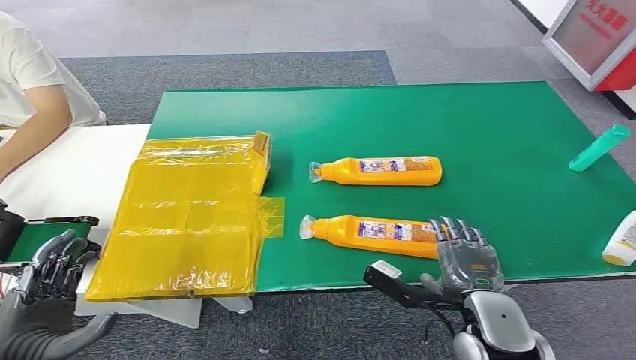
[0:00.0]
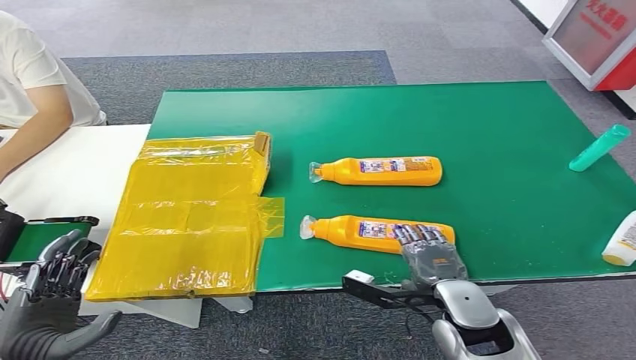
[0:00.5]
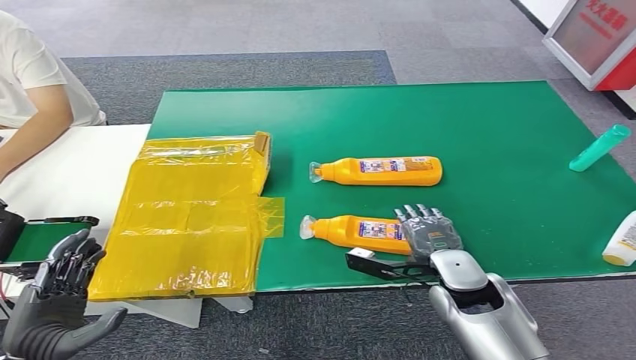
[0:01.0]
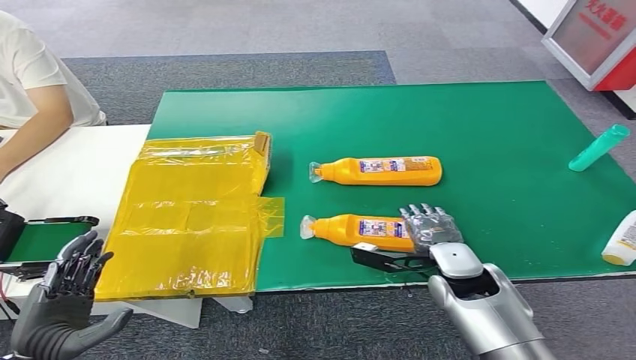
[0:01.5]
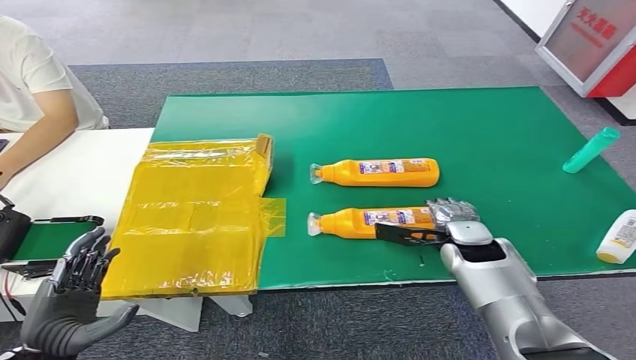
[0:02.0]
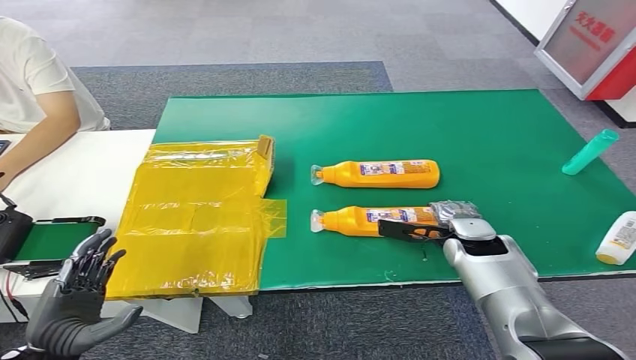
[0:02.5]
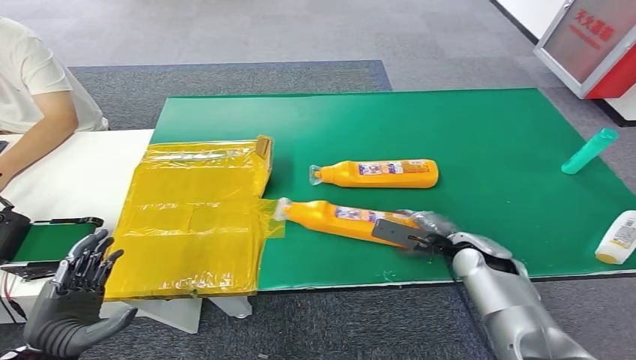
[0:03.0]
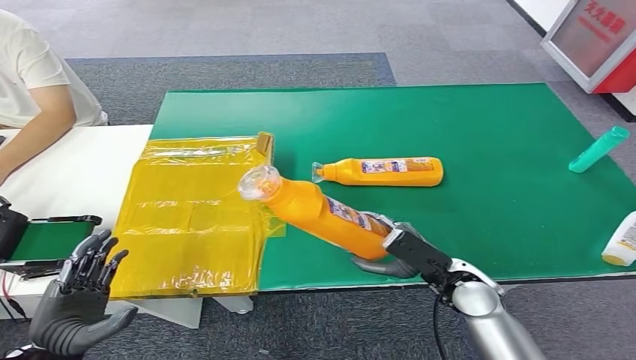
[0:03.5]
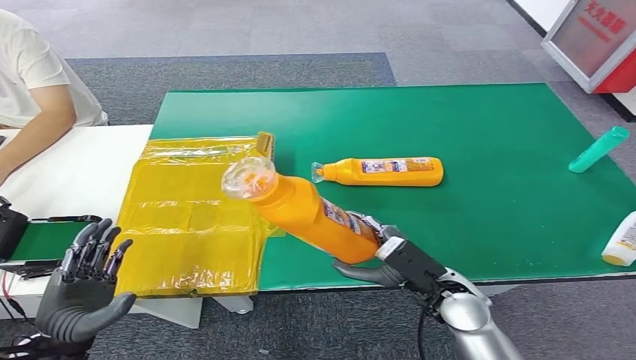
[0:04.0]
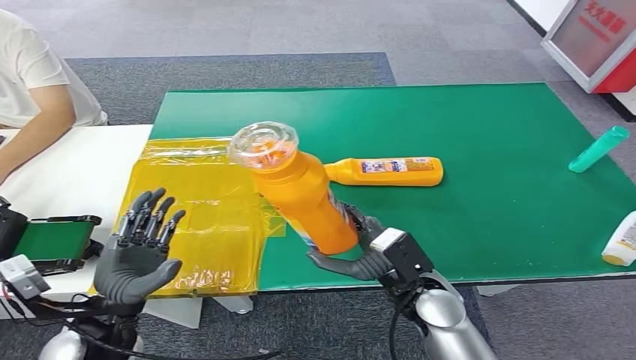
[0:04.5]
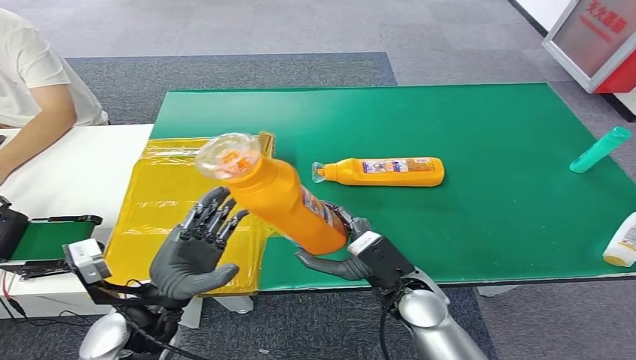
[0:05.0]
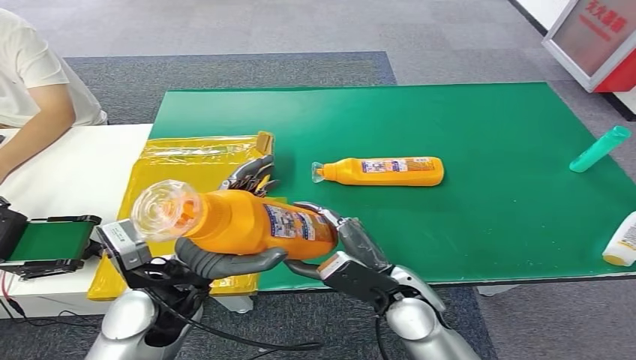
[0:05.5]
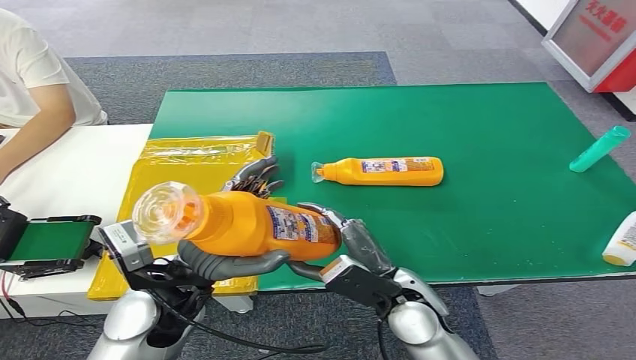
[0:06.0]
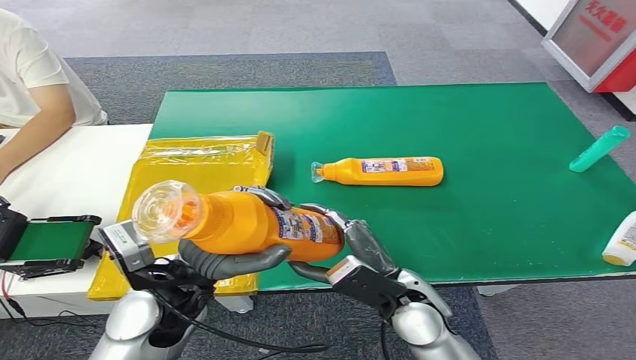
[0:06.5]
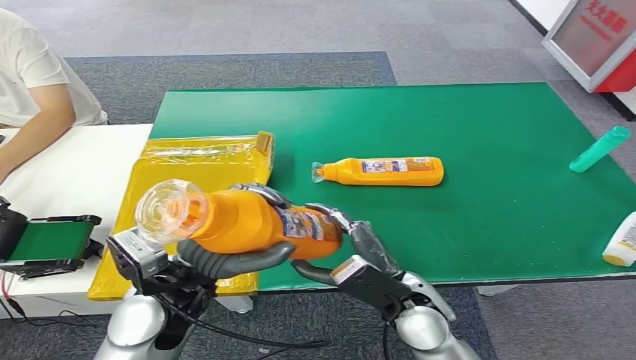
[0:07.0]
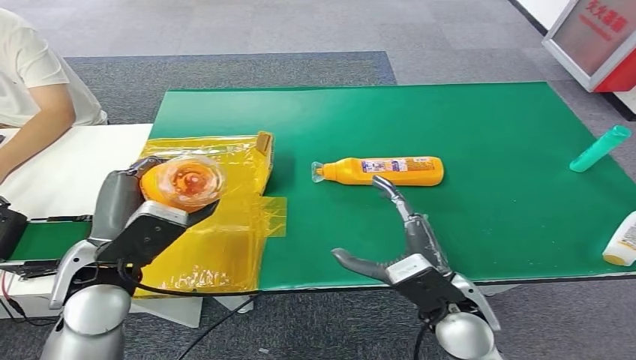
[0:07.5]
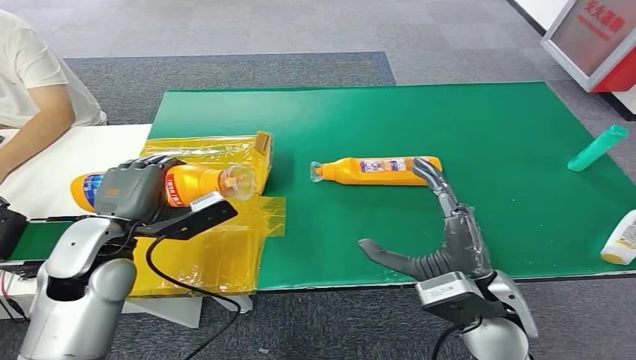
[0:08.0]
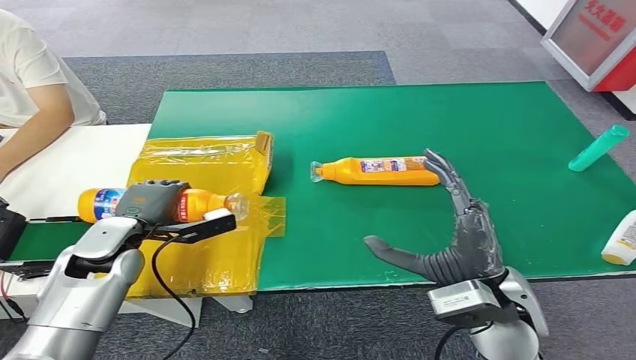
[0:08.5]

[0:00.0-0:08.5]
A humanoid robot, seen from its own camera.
Step, 0:00.0 to 0:03.0: Pick up the bottle from the table.
Step, 0:05.5 to 0:08.5: Turn the bottle to the front side.
0:04.0 to 0:06.5: The right hand shifts some 5 cm to the left, while the left hand goes about 20 cm to the right, forward and upward.

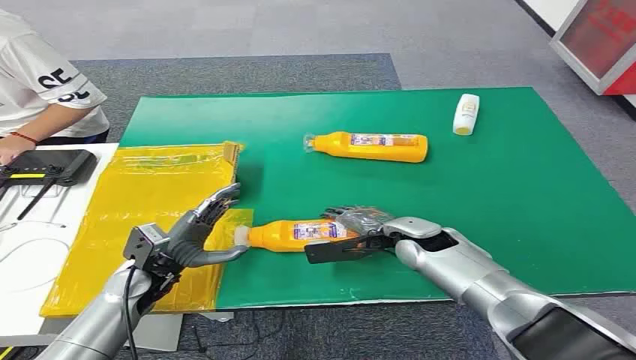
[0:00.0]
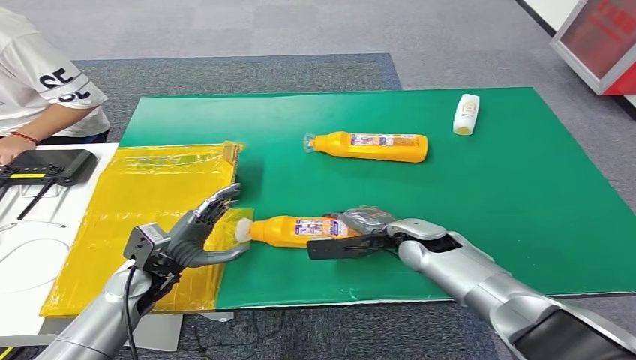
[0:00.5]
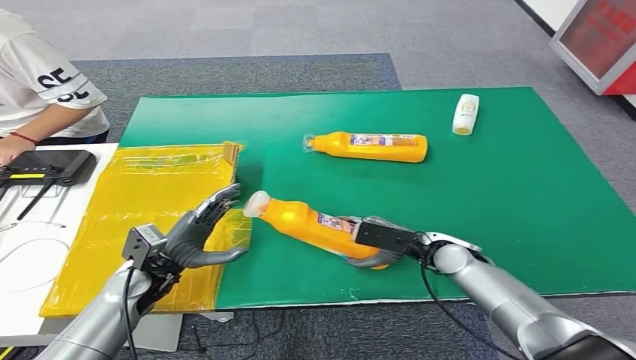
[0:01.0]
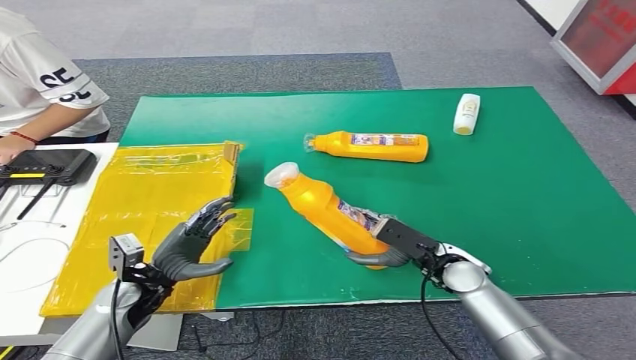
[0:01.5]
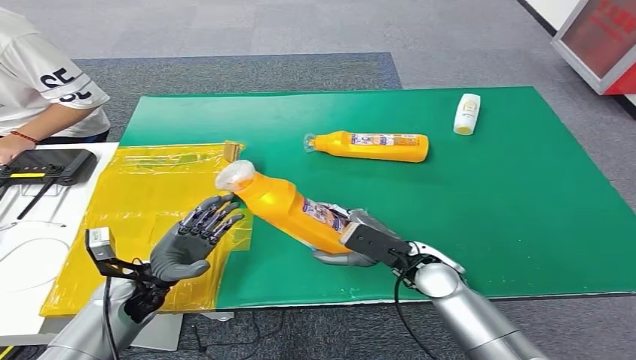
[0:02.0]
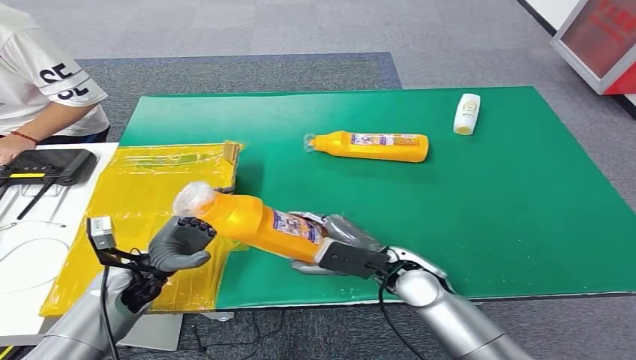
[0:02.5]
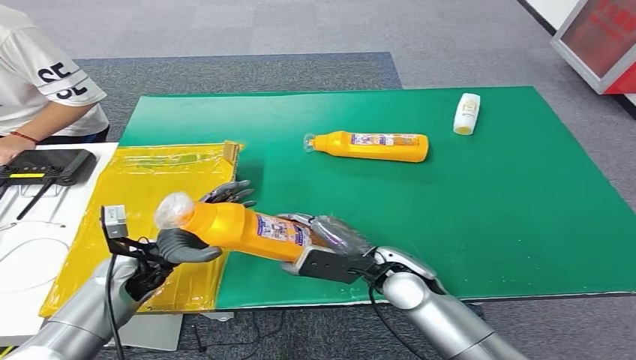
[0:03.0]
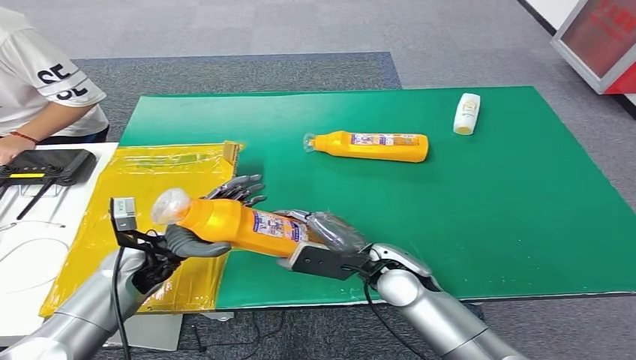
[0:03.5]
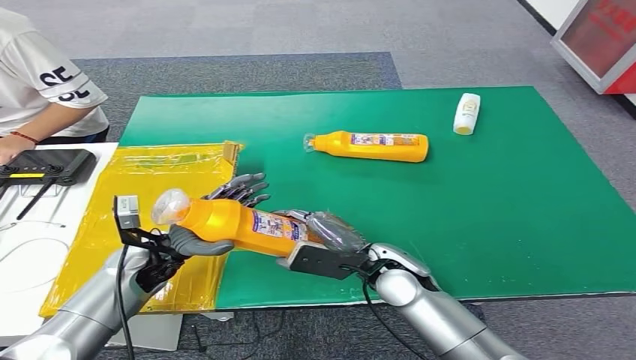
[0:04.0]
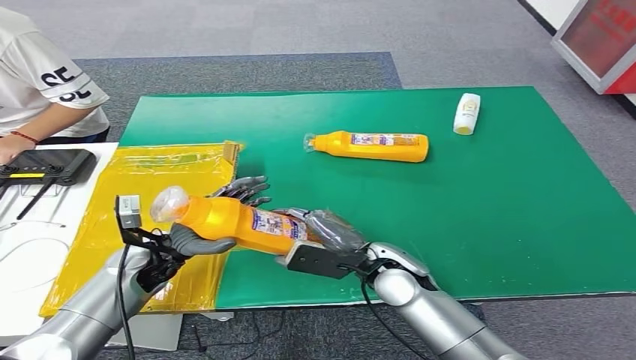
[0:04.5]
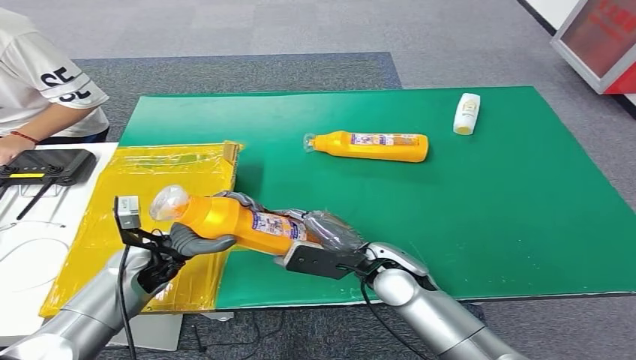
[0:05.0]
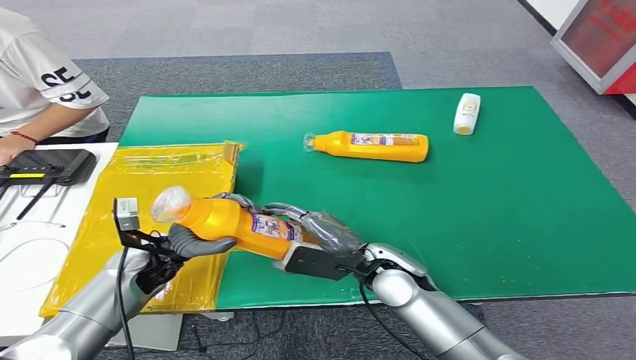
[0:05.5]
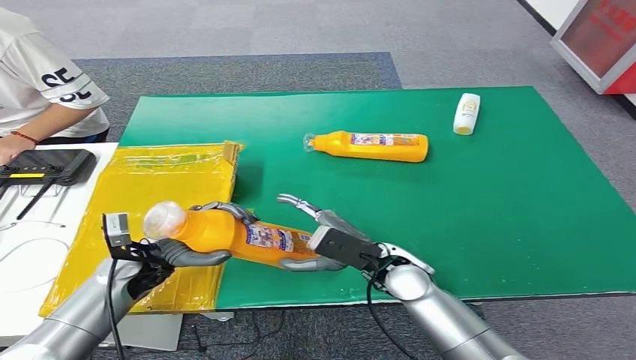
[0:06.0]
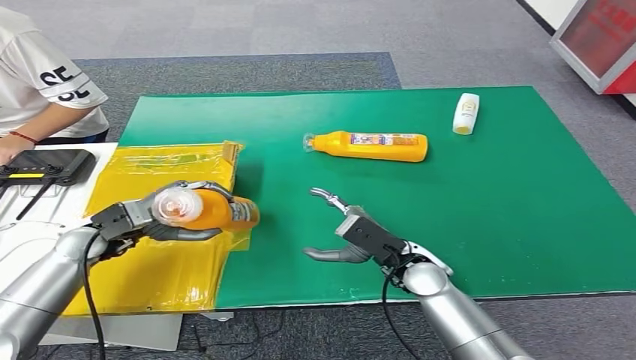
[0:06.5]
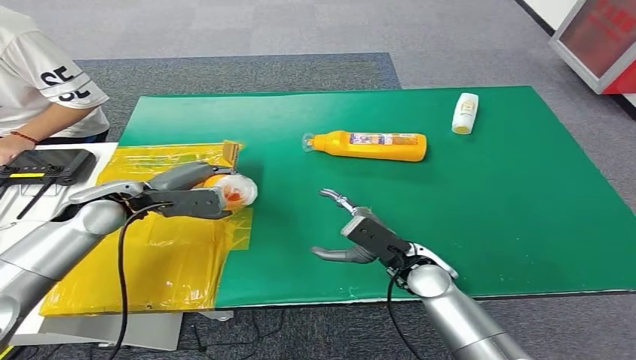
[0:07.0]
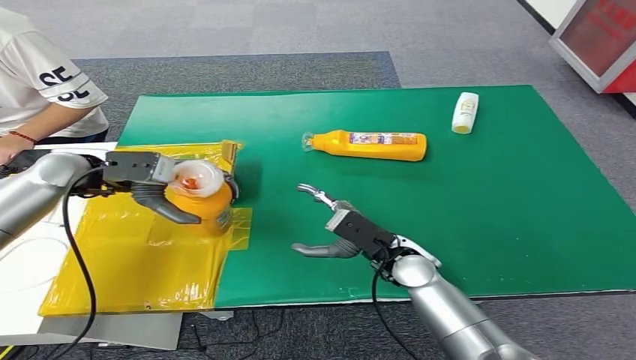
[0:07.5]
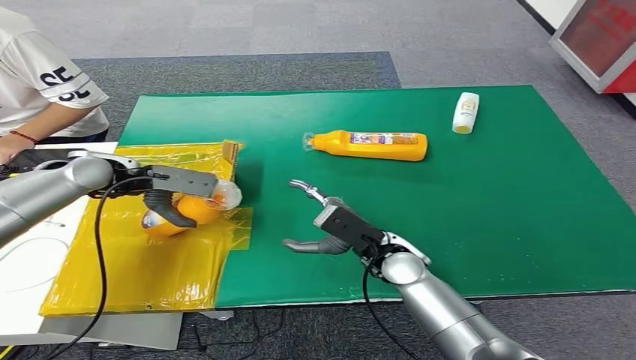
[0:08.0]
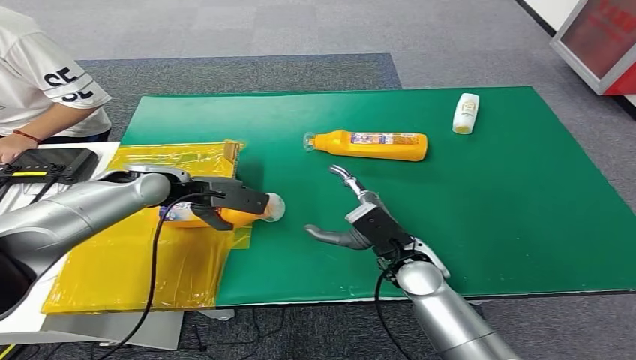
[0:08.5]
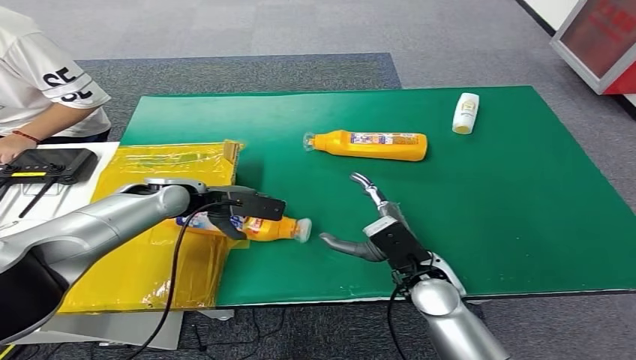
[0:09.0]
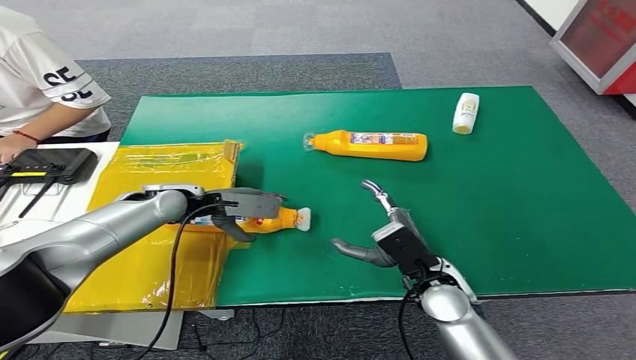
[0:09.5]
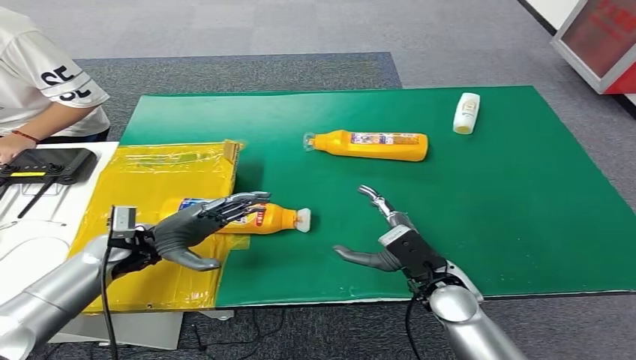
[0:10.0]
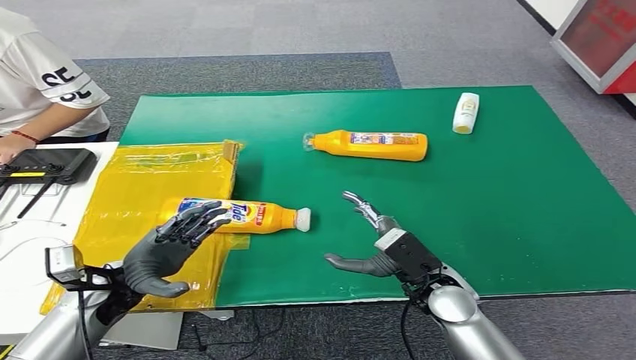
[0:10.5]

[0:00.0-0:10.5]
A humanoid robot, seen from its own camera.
Step, 0:00.0 to 0:02.0: Pick up the bottle from the table.
Step, 0:02.5 to 0:10.5: Turn the bottle to the front side.
0:02.0 to 0:04.0: The right hand is displaced to the left by approximately 5 cm. Meanwhile the left hand ends up about 5 cm from where it was.
0:04.0 to 0:06.5: The left hand travels to the left by roughly 10 cm.
0:08.5 to 0:10.5: The right hand ends up about 5 cm from where it was, while the left hand travels backward and downward by about 20 cm.
